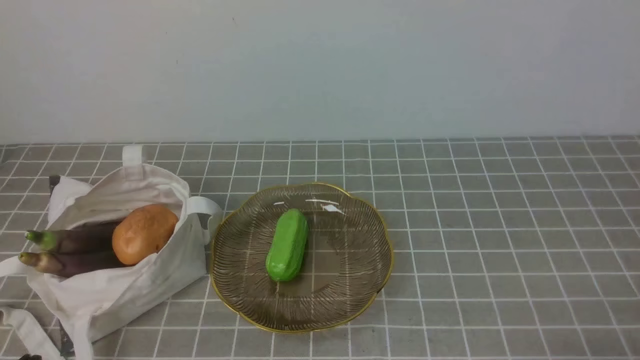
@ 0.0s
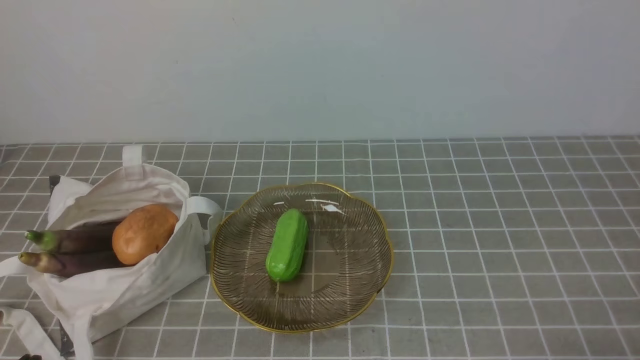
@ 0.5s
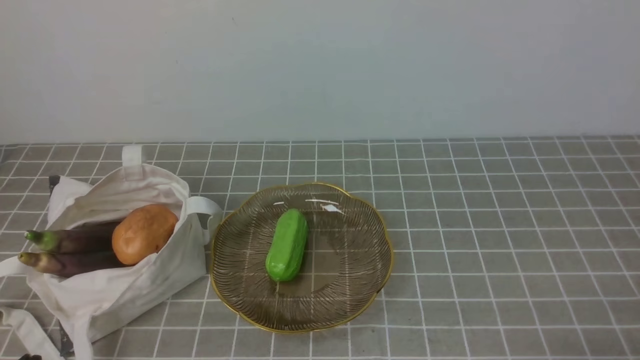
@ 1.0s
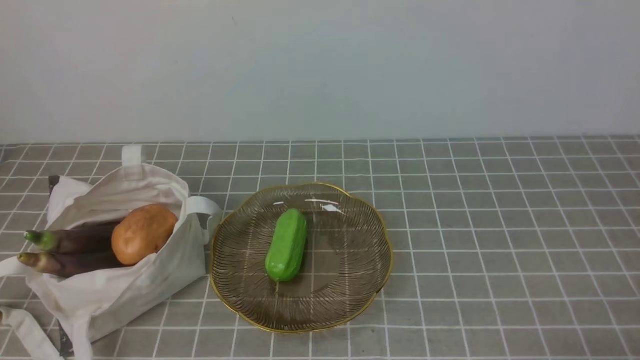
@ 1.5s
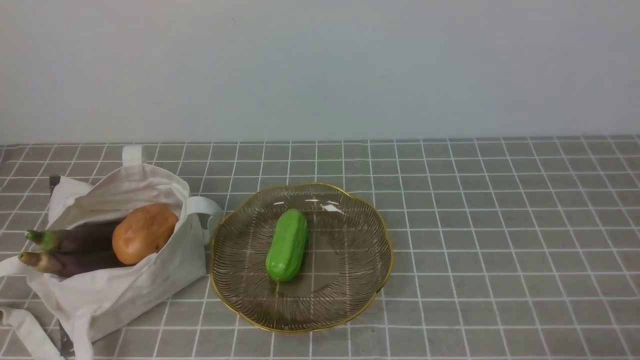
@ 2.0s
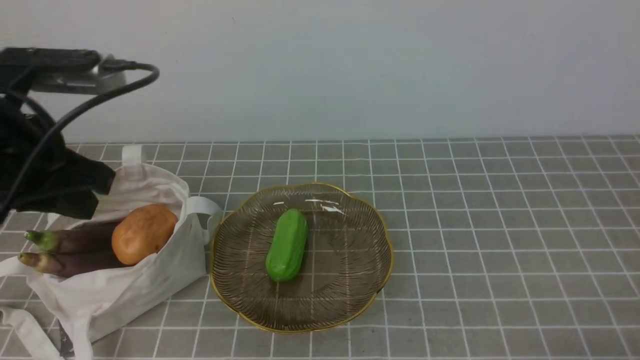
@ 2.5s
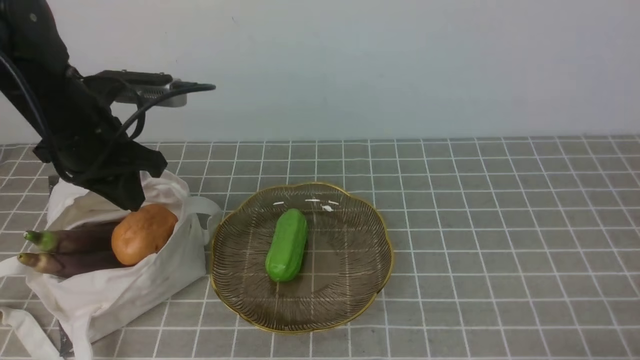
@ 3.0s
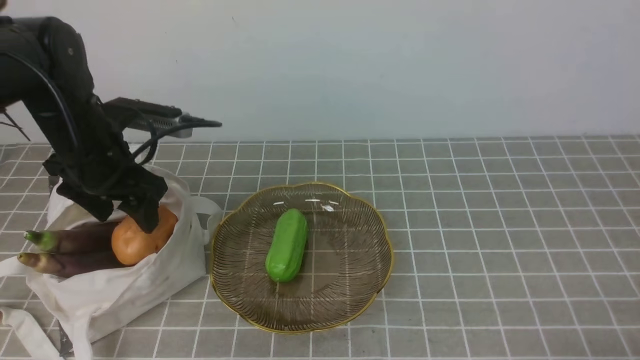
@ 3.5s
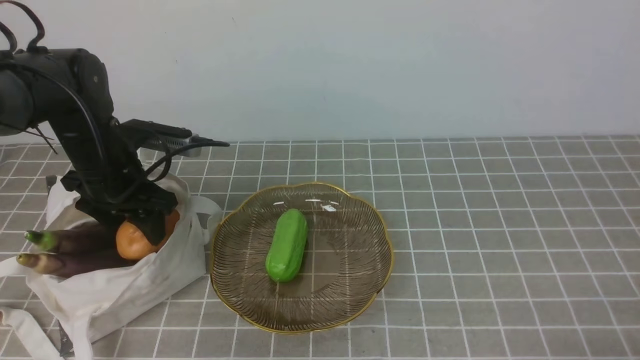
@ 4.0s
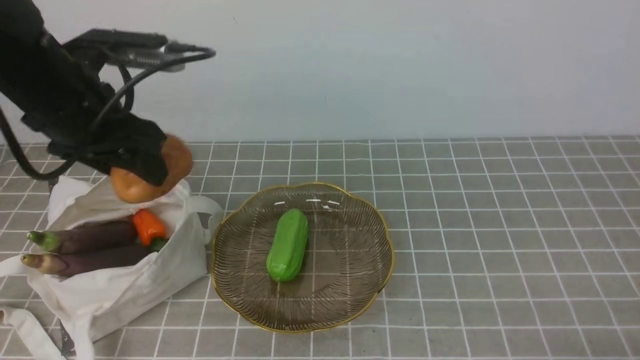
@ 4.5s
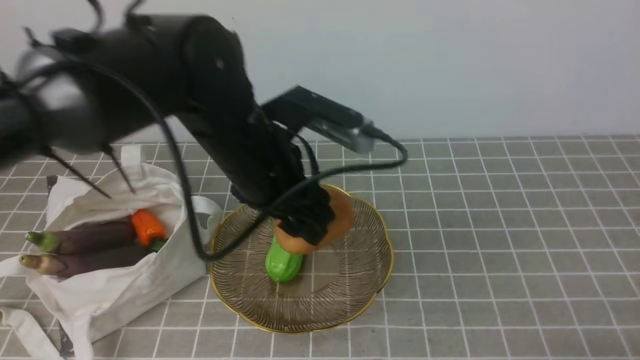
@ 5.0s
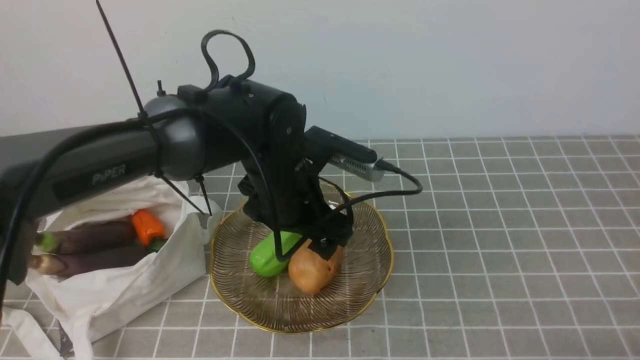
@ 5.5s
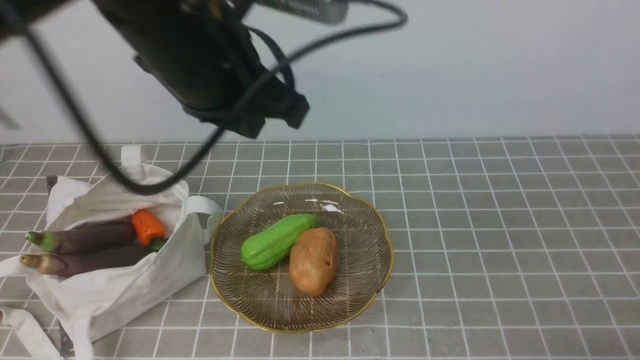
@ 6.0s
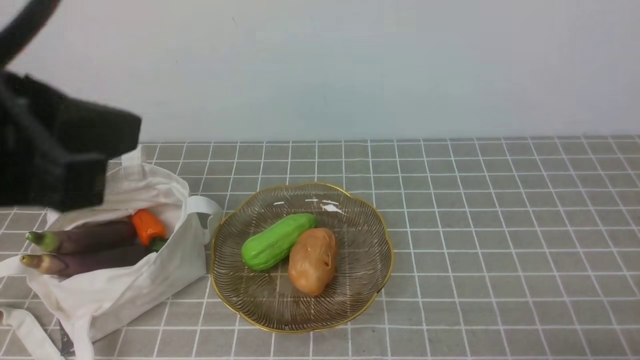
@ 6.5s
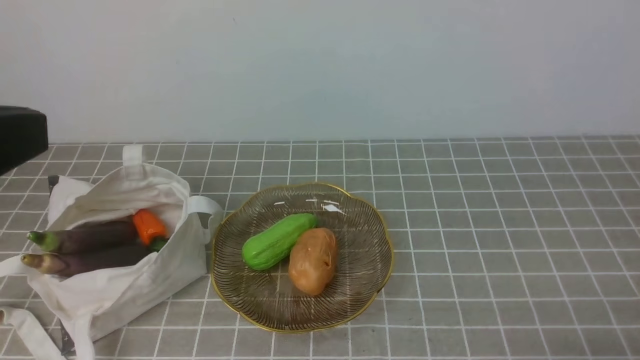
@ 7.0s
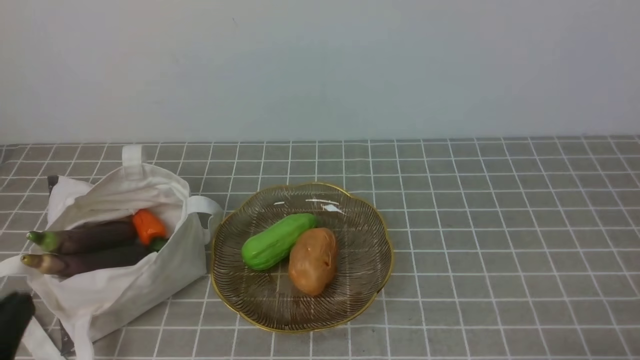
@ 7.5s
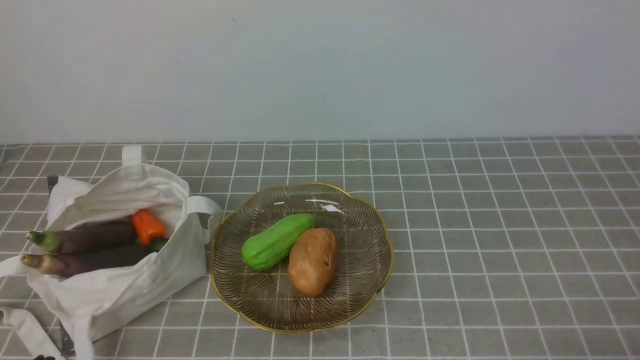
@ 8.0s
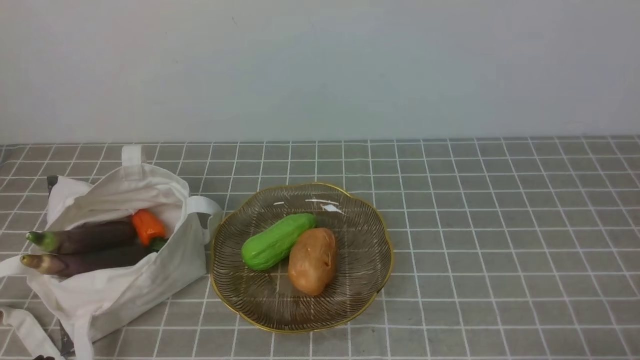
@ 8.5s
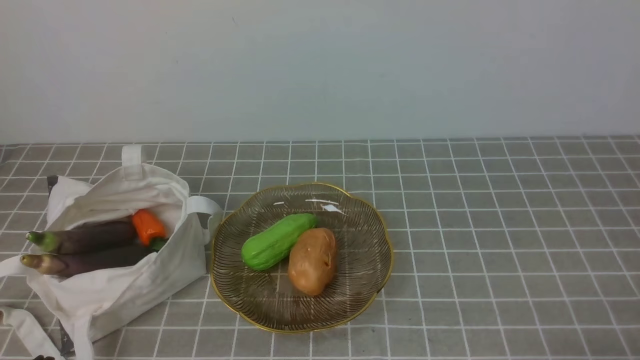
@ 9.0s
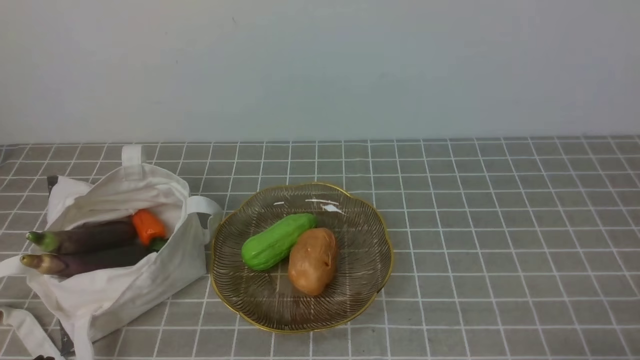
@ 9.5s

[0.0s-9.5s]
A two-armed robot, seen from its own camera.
Task of the whole recording: take vegetables from bag on grey coffee tablecloth place on plate.
Step, 0.0s to 3.5s: Grasp the potato with left gripper.
Step, 4.5s to 5.5s: Place the potato on the plate with left gripper.
2.0s to 4.0s: The left gripper heads forward and downward, covering some 35 cm, and opens its fingers.
4.0s to 5.5s: The left gripper heads to the right, covering roughly 20 cm.
5.5s to 7.5s: The left gripper goes approximately 35 cm backward and to the left, and closes.
7.5s to 9.5s: The left gripper is displaced downward by roughly 5 cm.
